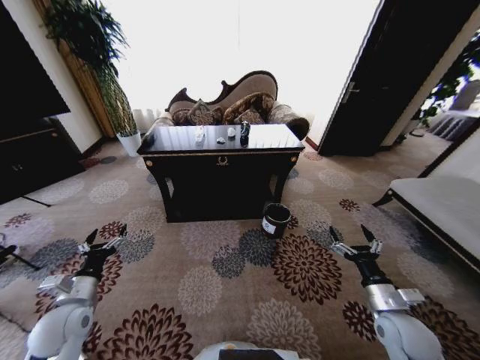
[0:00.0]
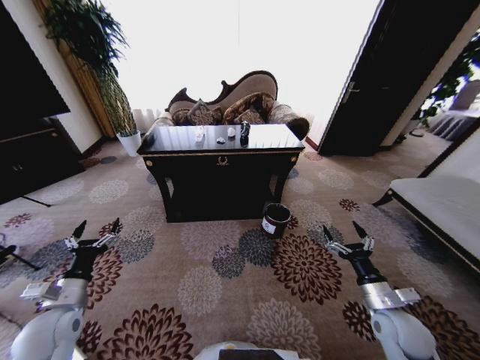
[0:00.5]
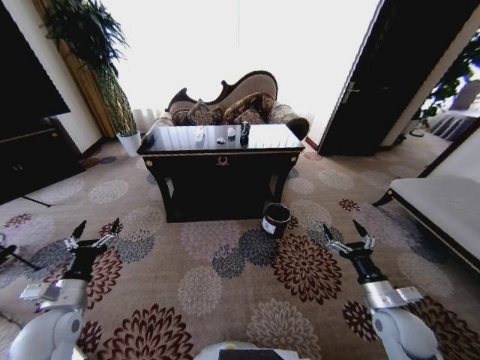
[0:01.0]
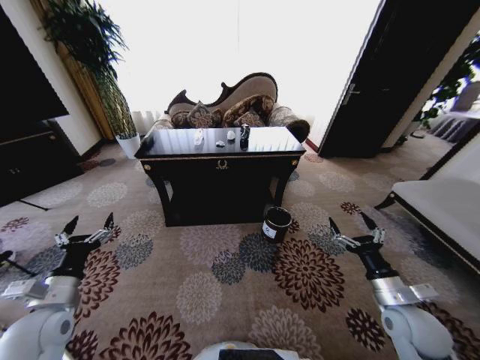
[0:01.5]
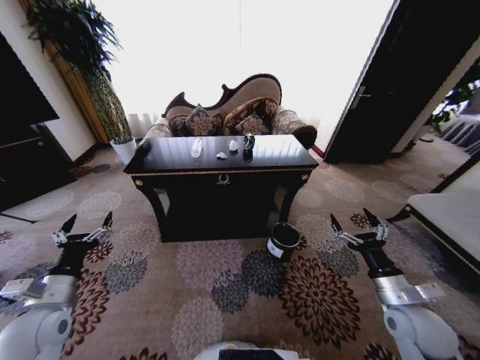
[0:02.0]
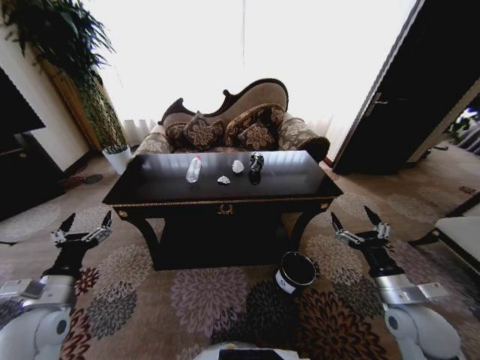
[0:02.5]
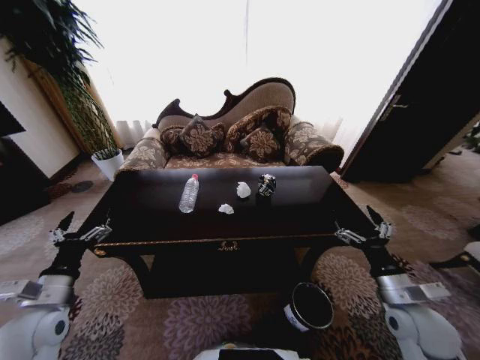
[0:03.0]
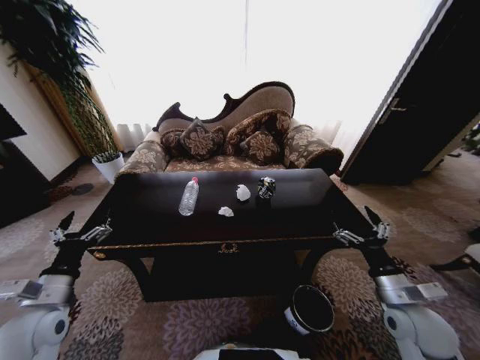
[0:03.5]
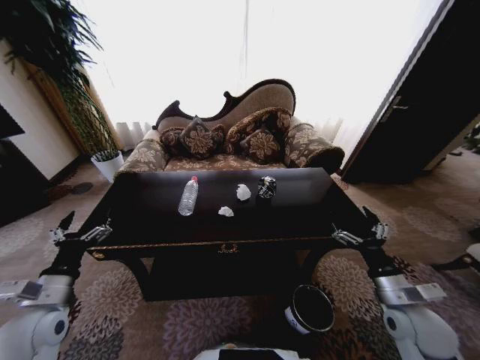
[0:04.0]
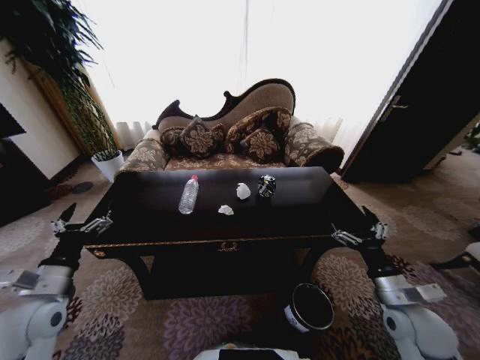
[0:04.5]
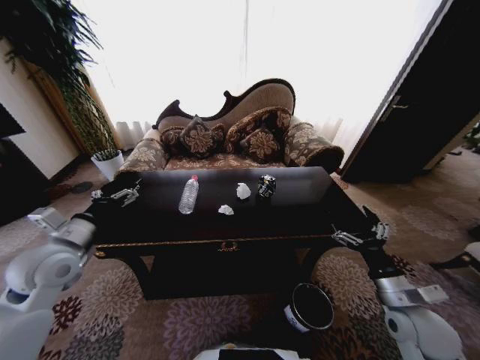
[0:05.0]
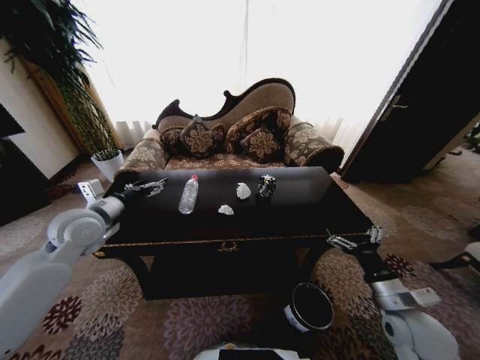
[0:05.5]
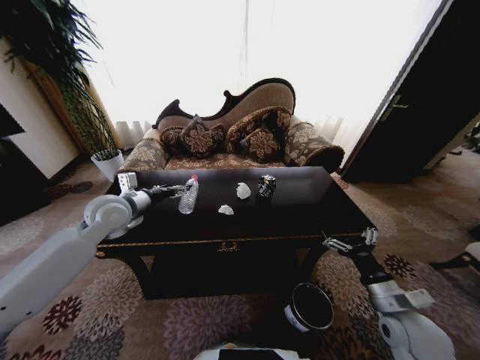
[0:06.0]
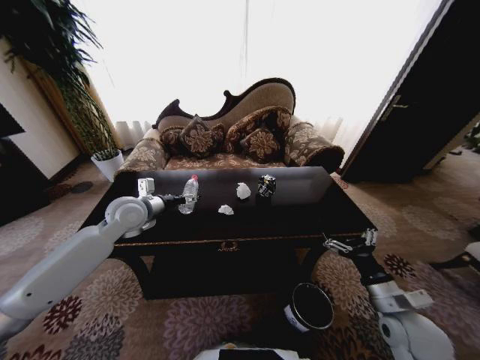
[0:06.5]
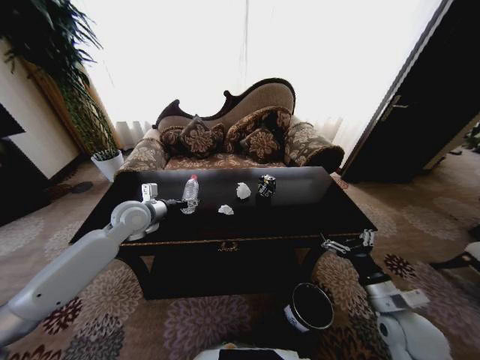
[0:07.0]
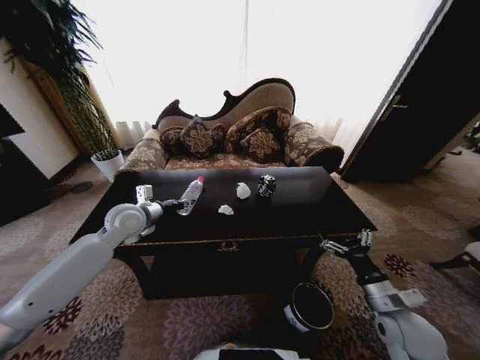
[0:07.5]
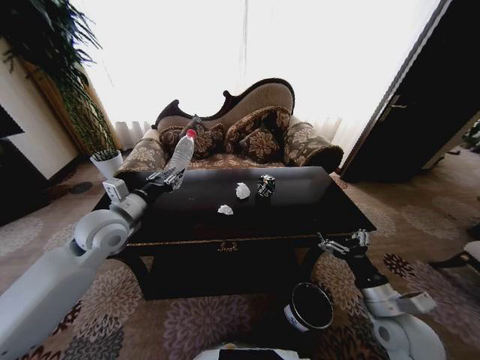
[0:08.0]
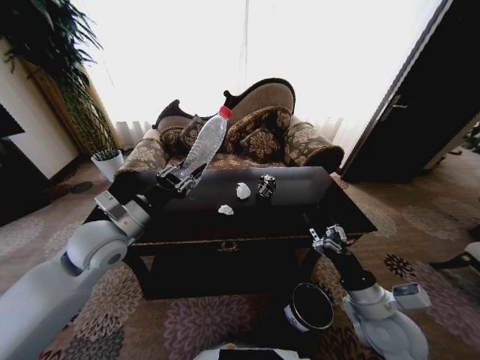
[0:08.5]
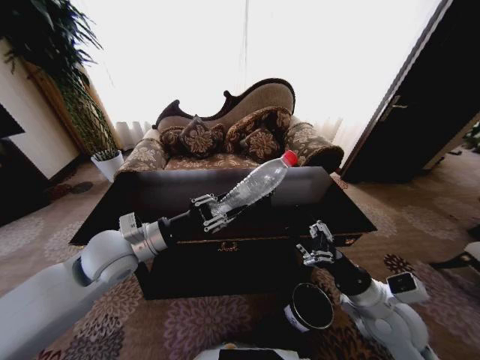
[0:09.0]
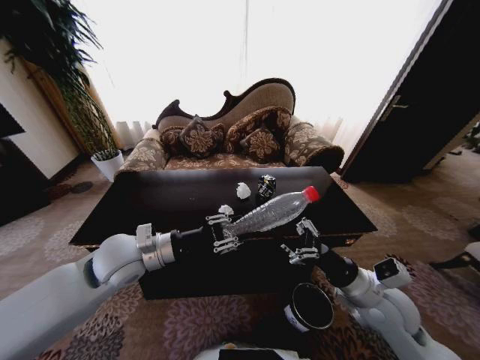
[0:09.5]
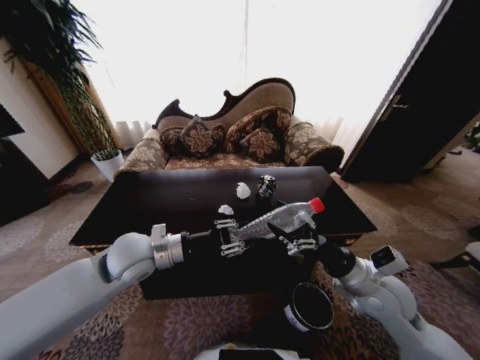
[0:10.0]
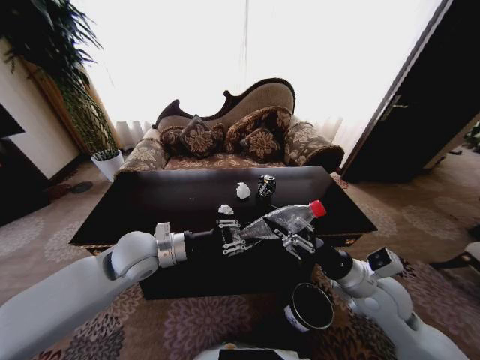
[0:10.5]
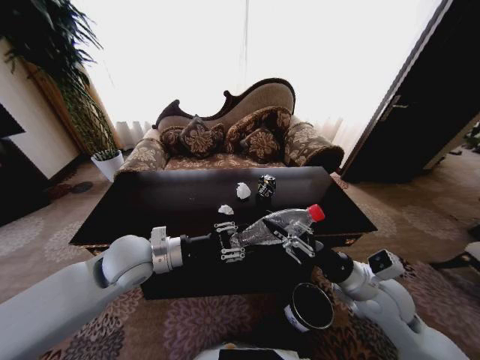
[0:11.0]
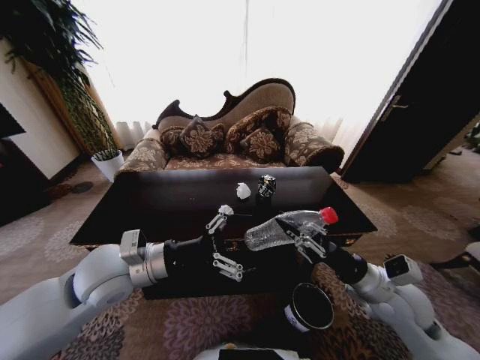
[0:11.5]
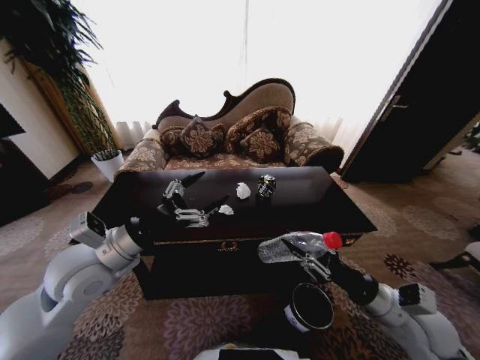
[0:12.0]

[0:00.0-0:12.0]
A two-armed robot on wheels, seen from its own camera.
Task of the whole recording: Move to the front of the table and place the trash on the table into the trash bin.
0:04.0 to 0:06.0: The left gripper is displaced forward, upward and to the right by roughly 25 cm.
0:06.0 to 0:08.0: The left gripper closes.
0:08.0 to 0:10.0: The right gripper goes approximately 10 cm upward, forward and to the left, while the left gripper is displaced to the right by approximately 10 cm.
0:10.0 to 0:12.0: The left gripper moves to the left, some 5 cm, and opens up, while the right gripper heads to the right, covering about 5 cm, and closes its fingers.

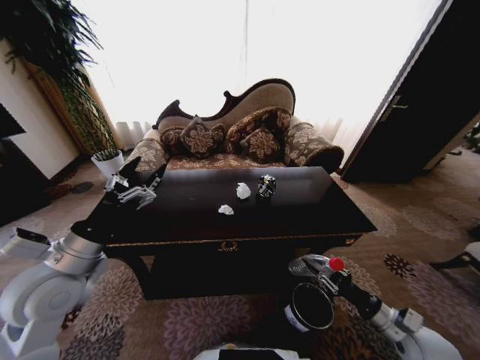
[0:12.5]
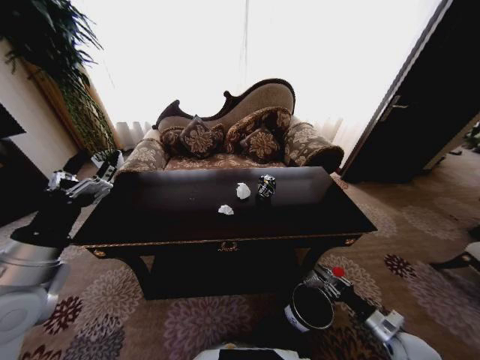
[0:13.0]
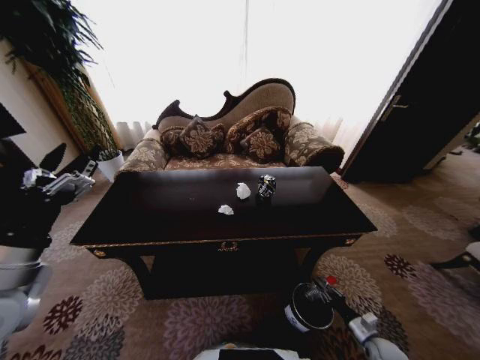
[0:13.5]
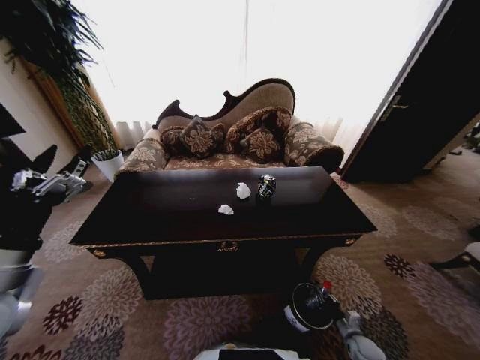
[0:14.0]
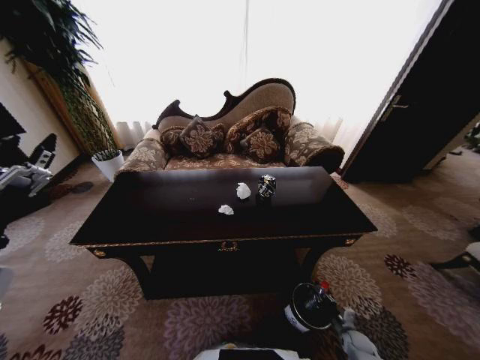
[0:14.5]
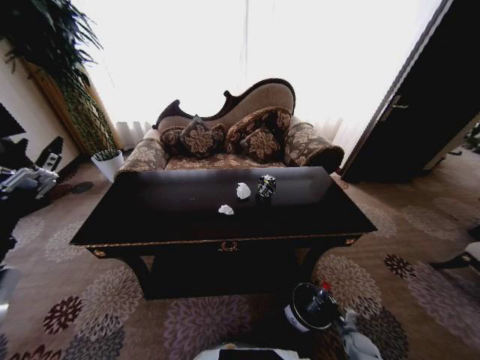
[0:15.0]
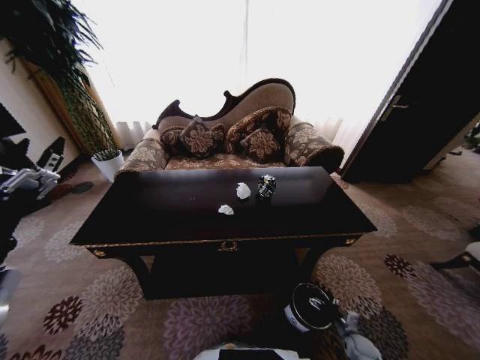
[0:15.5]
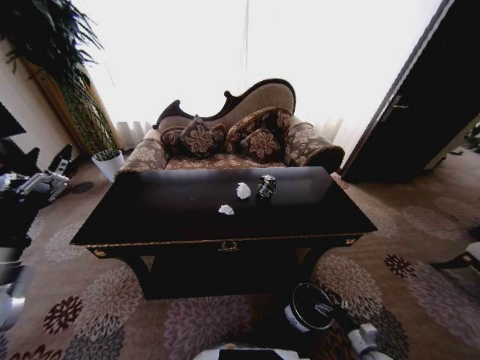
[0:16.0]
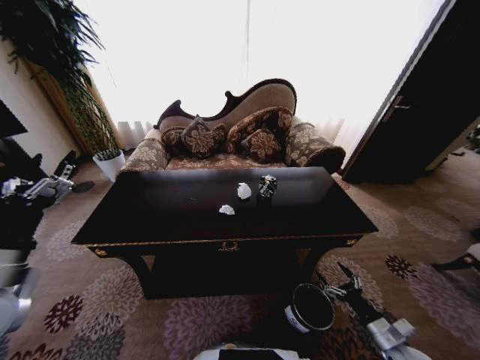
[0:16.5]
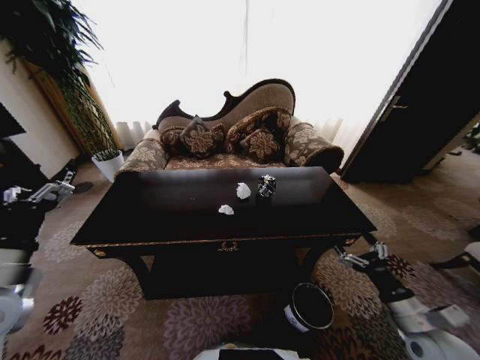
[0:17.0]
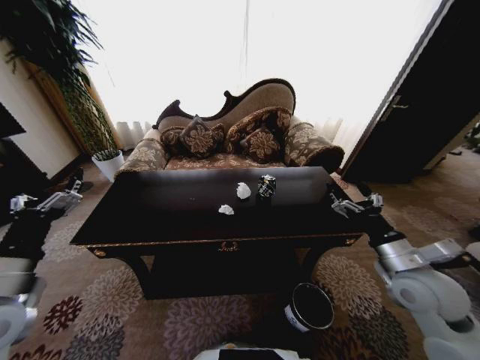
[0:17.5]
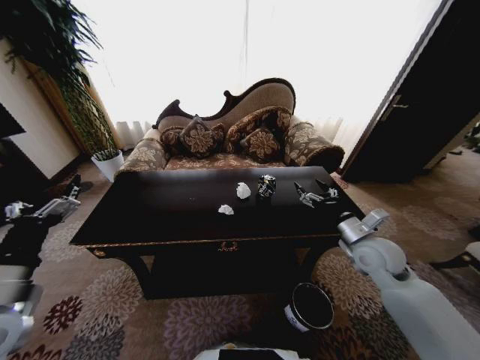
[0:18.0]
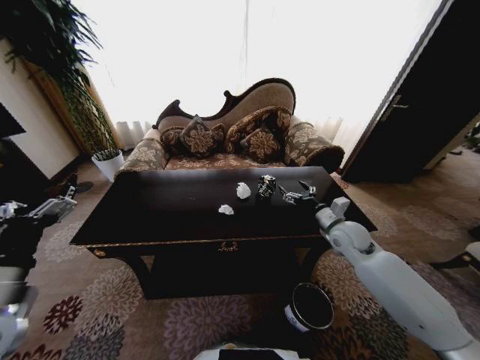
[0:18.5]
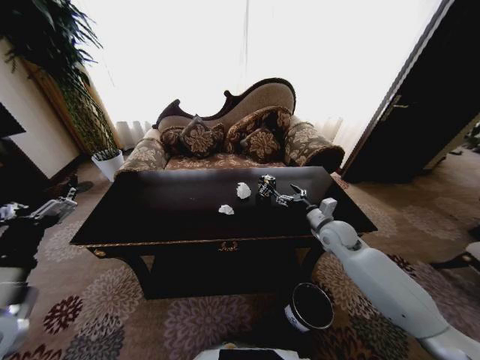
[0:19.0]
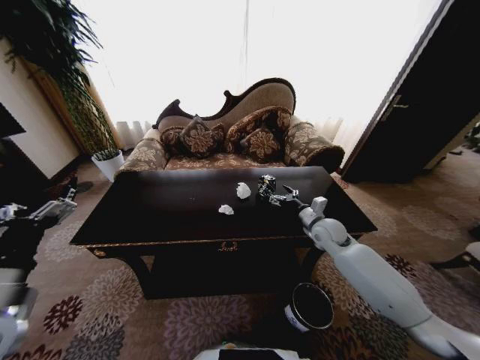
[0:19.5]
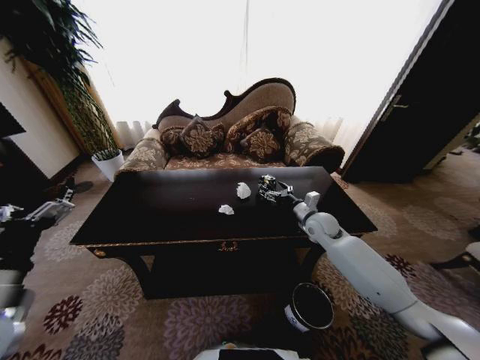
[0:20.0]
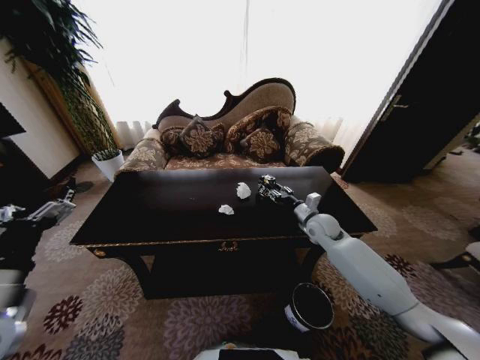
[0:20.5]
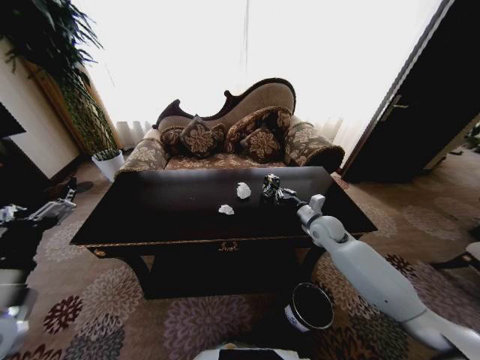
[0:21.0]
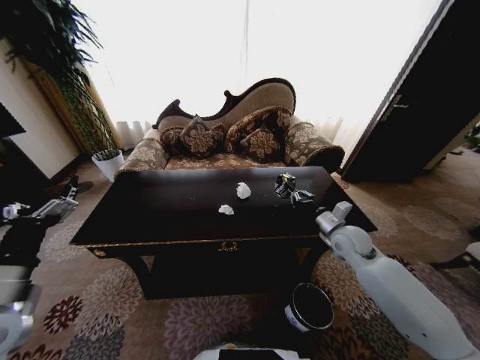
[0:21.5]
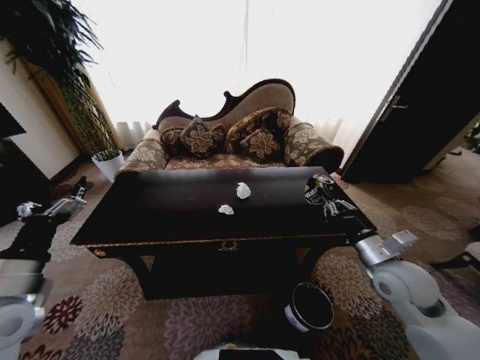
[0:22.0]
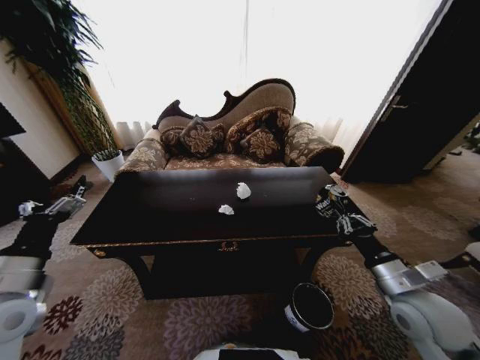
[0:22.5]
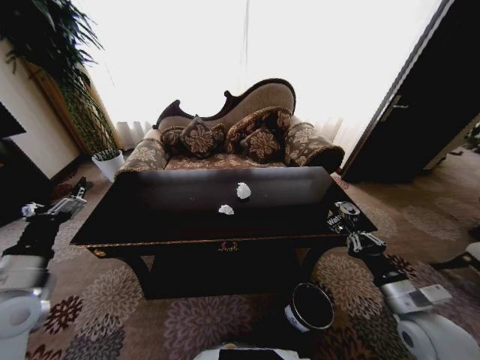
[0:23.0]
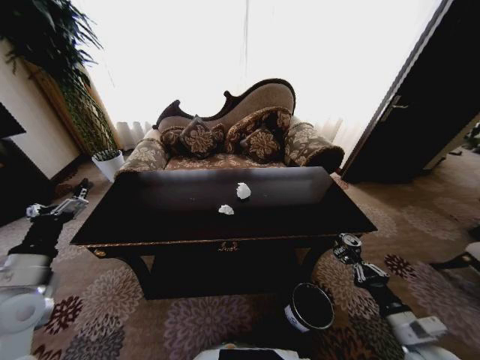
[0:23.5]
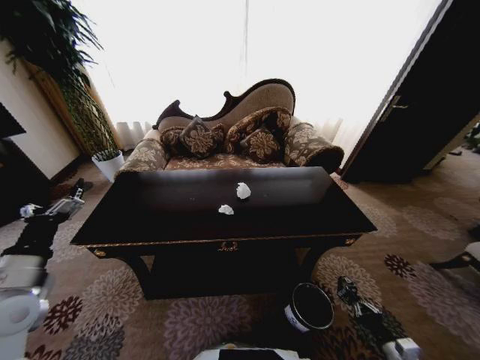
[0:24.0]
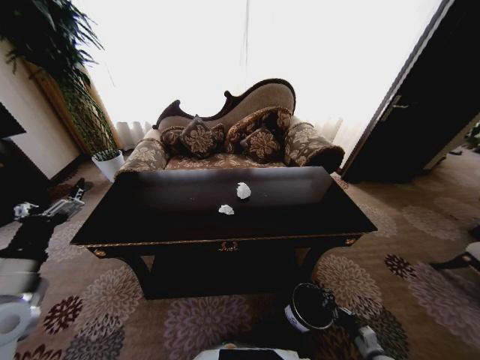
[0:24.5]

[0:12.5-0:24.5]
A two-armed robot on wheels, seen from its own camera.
Task of the whole recording: Move to the front of the table and place the trash on the table into the trash bin.
0:12.5 to 0:14.5: The left gripper goes some 10 cm to the left and backward. Meanwhile the right gripper travels downward by roughly 30 cm.
0:14.5 to 0:16.5: The right gripper moves upward, about 20 cm, and opens.
0:16.5 to 0:18.5: The right gripper is displaced forward, upward and to the left by roughly 35 cm.
0:18.5 to 0:20.5: The right gripper moves forward, some 5 cm, and closes.
0:20.5 to 0:22.5: The right gripper is displaced backward by about 25 cm, and closes.
0:22.5 to 0:24.5: The right gripper shifts roughly 35 cm downward.

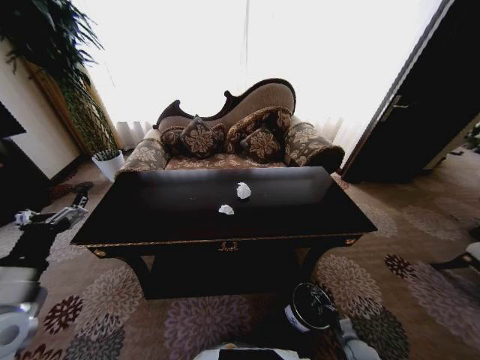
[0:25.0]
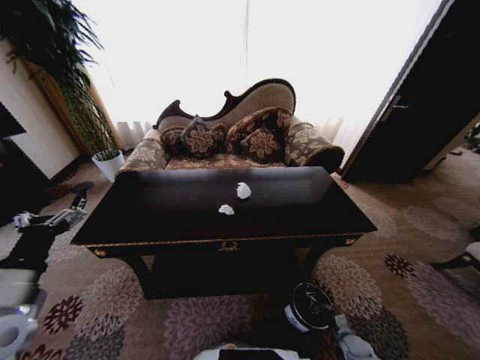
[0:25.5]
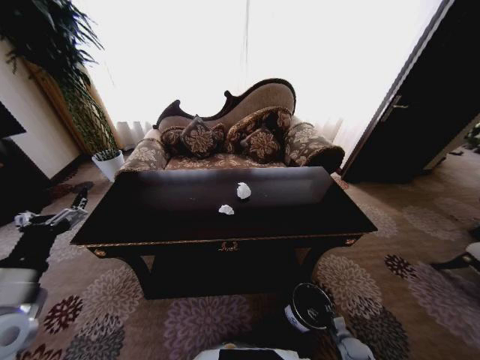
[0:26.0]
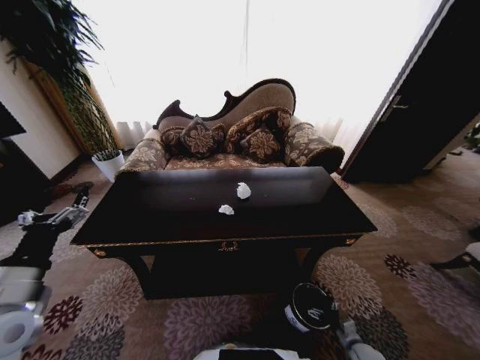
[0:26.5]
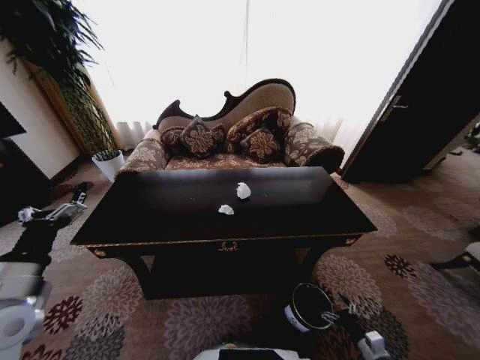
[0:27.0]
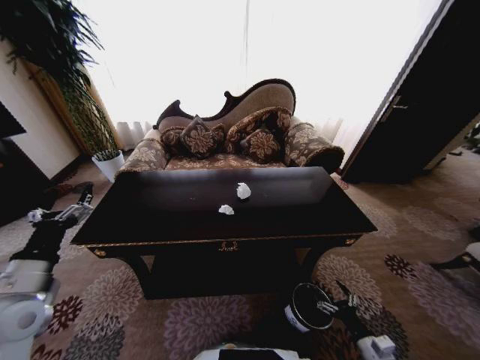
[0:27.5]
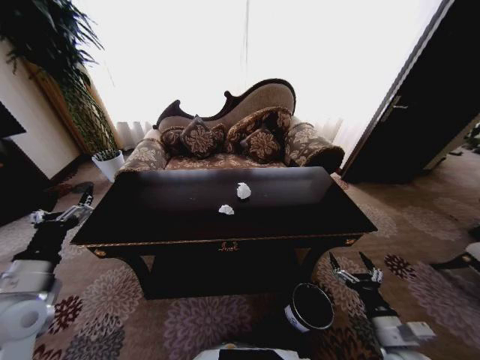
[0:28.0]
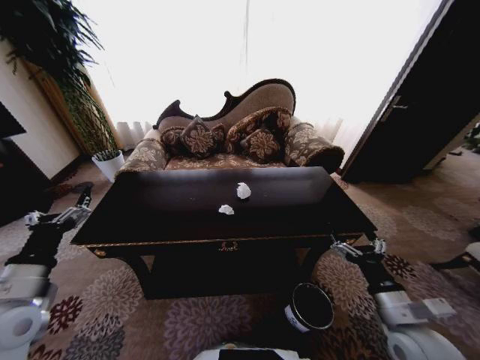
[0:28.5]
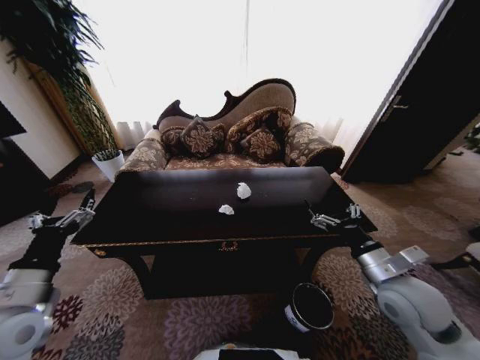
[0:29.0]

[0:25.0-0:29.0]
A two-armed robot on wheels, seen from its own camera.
Task of the whole recording: Move to the front of the table and place the trash on the table into the trash bin.
0:25.0 to 0:27.0: The right gripper shifts roughly 10 cm upward and backward, and opens.
0:27.0 to 0:29.0: The right gripper is displaced upward by approximately 30 cm.
